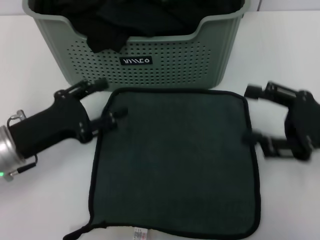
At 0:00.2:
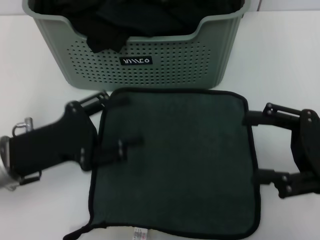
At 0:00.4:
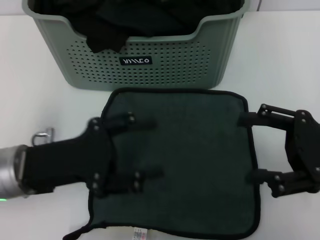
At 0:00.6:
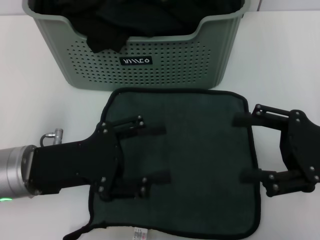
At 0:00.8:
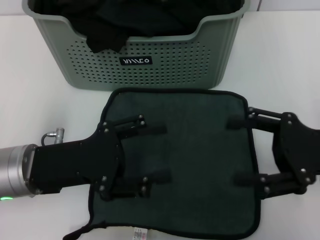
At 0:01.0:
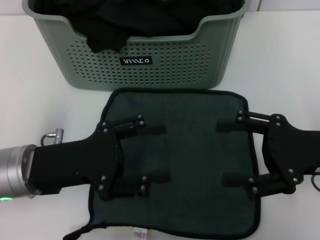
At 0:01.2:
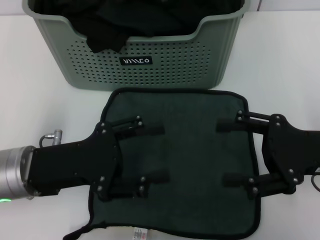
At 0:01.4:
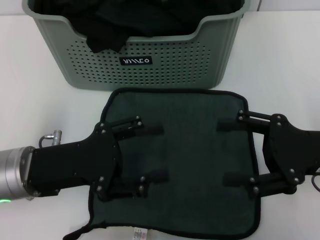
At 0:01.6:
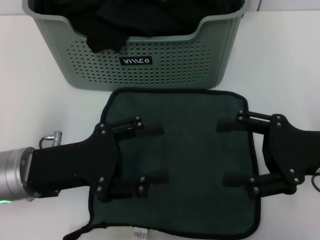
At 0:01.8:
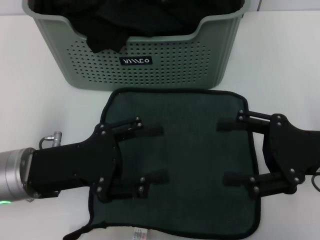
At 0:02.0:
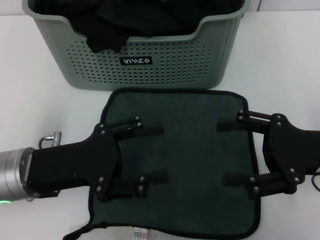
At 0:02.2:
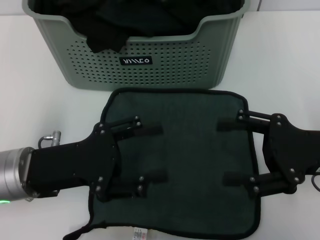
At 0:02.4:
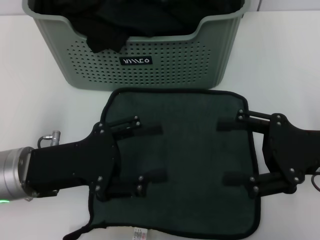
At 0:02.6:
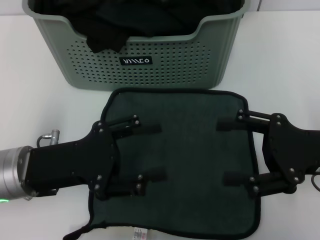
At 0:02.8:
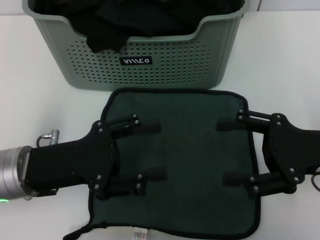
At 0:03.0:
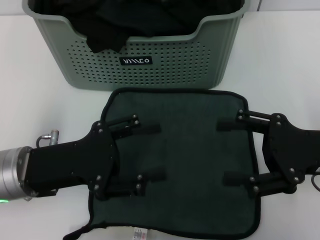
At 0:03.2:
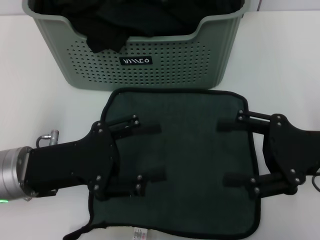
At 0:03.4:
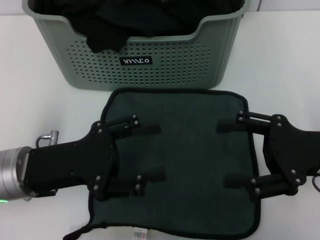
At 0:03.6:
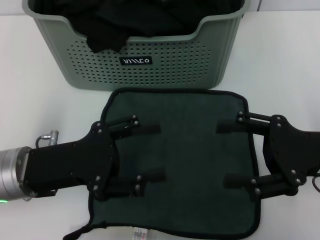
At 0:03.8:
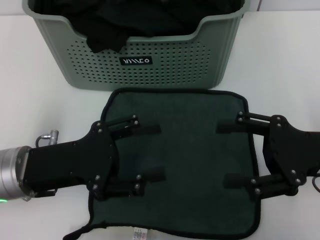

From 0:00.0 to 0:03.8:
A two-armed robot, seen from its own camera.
Task of the whole recording: pick up the towel from the storage box and lay it flat on the table.
From 0:00.0 to 0:01.2: The left gripper shifts by about 5 cm.
From 0:01.2 to 0:03.8: The two grippers keep their place.
